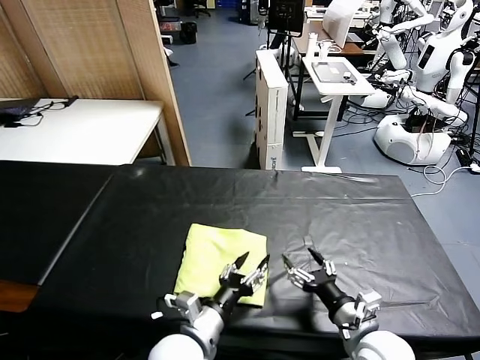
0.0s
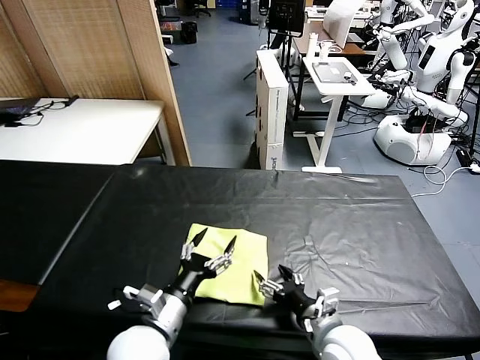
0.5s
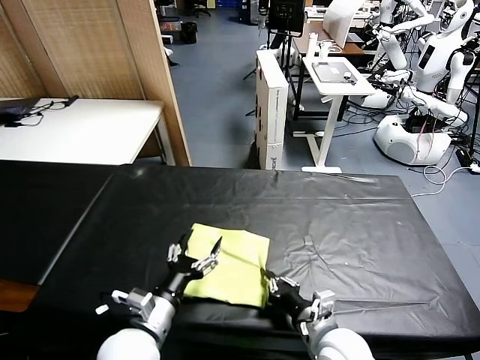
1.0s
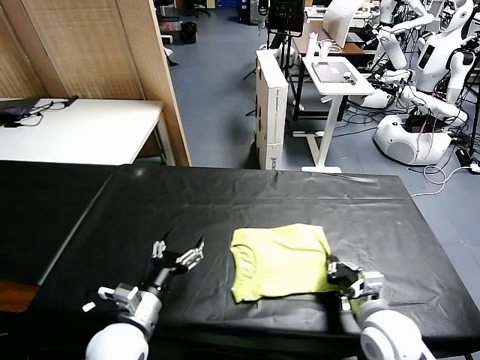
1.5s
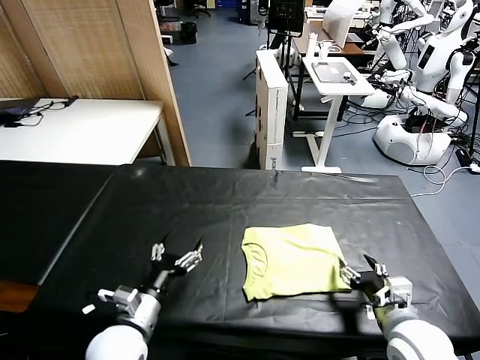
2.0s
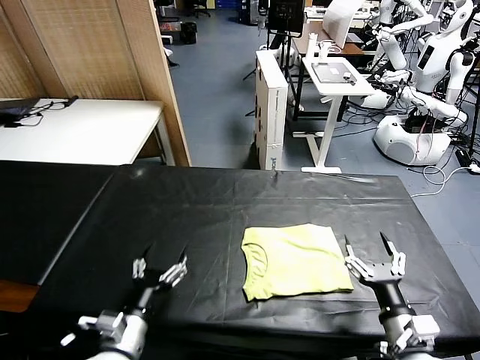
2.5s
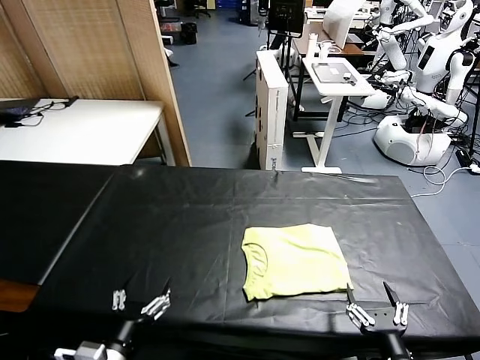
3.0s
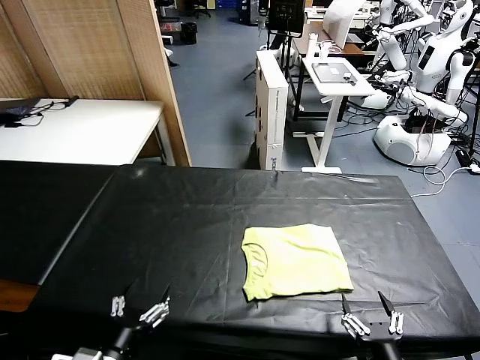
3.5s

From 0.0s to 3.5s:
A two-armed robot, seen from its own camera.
Task of the whole recording: fold and organize the clothes.
Step, from 0.5s to 2.0s: Drag the clothes to the center of the table.
From 0.0s to 2.0s: The left gripper goes approximately 10 cm to the left. Meanwhile the right gripper shifts roughly 5 cm to the right, and closes, then opens again.
From 2.0s to 3.5s: The grippers both shift backward by roughly 10 cm.
